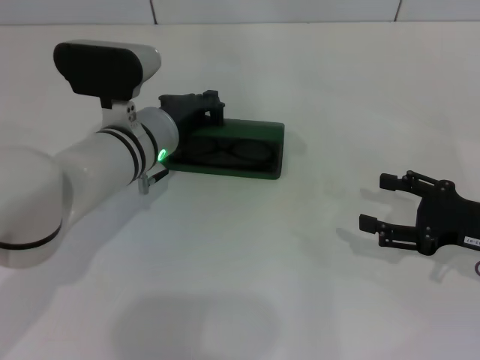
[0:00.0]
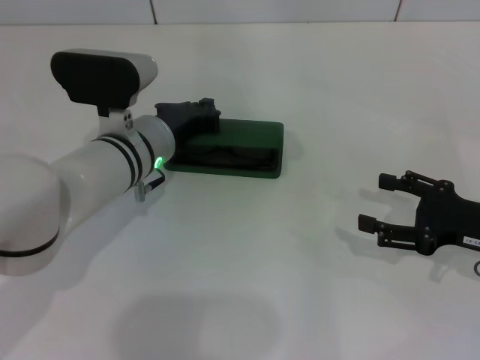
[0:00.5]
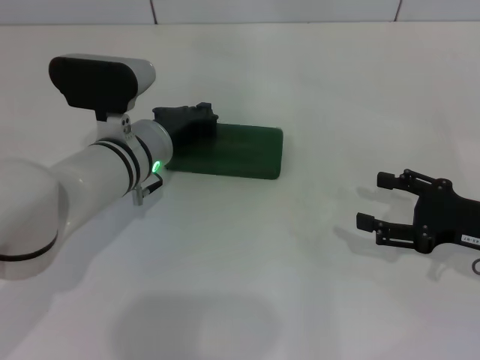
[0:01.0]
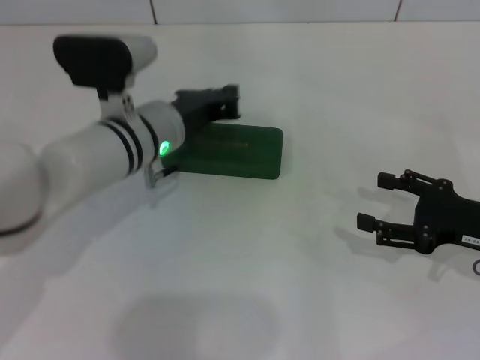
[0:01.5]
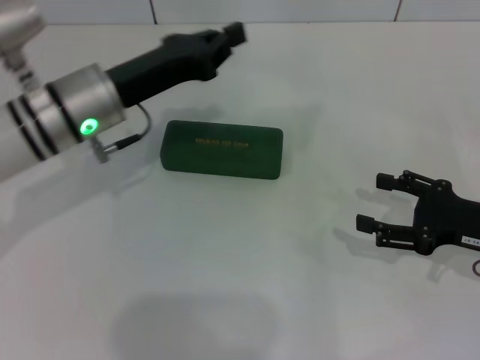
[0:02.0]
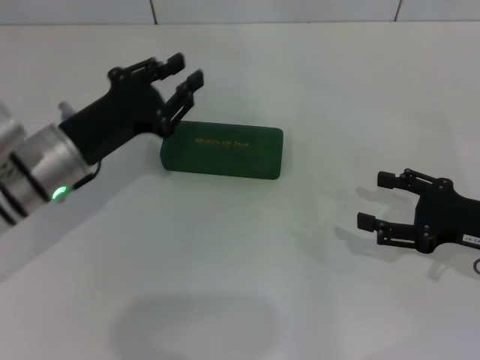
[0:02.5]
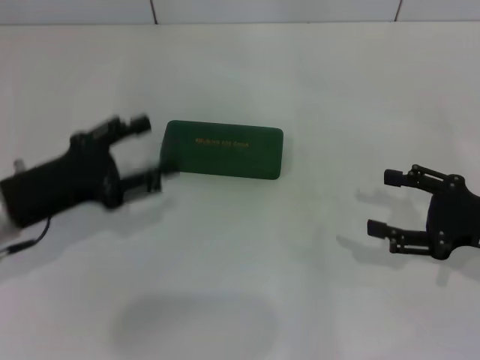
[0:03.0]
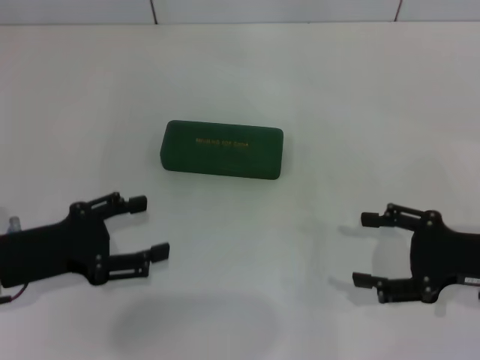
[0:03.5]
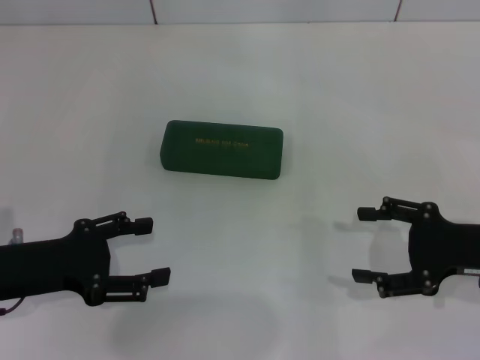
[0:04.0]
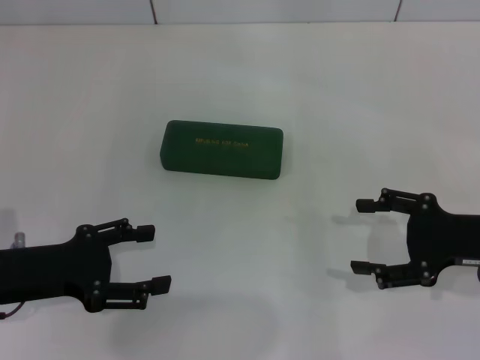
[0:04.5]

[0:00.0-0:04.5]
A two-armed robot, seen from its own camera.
0:00.0 to 0:02.0: The left gripper is displaced to the left by roughly 5 cm.
0:02.0 to 0:04.5: The left gripper goes approximately 15 cm backward and to the left, and opens up.
